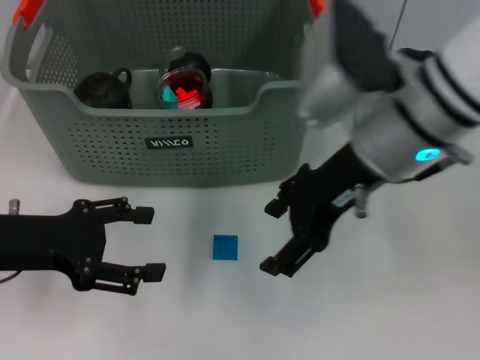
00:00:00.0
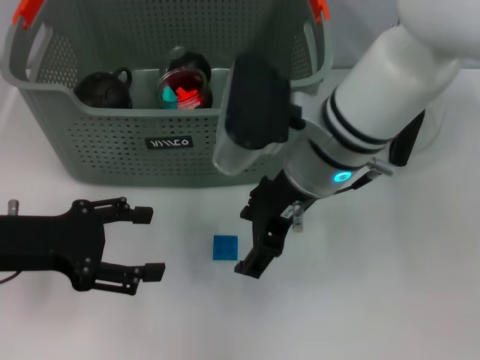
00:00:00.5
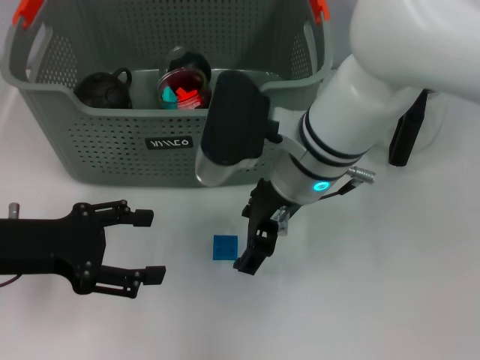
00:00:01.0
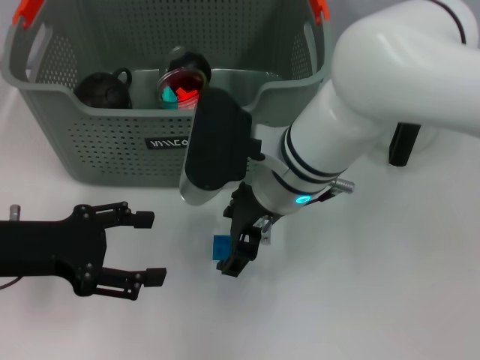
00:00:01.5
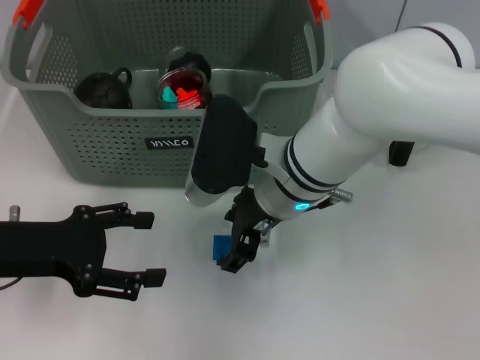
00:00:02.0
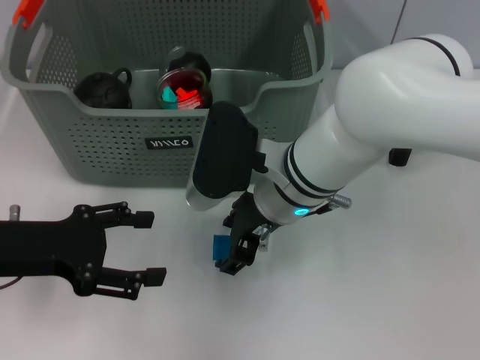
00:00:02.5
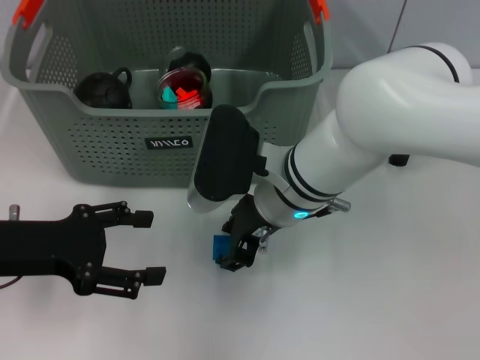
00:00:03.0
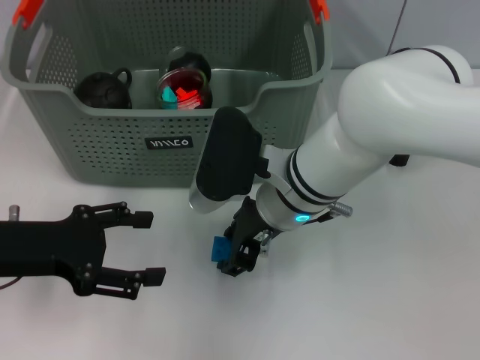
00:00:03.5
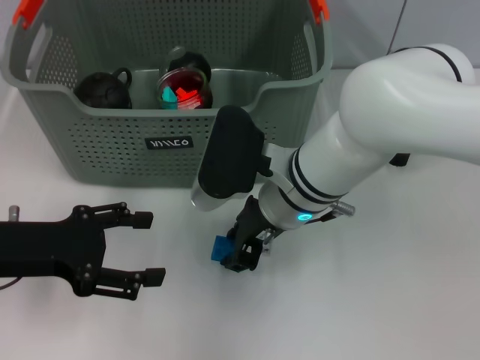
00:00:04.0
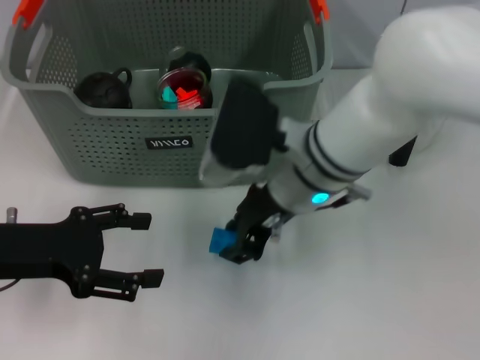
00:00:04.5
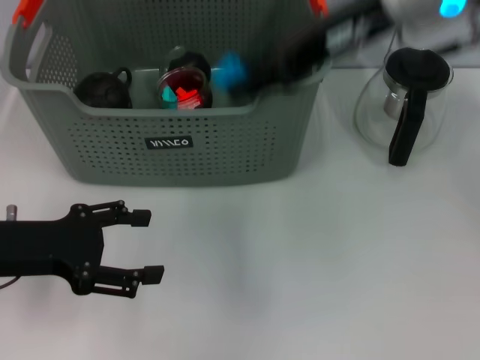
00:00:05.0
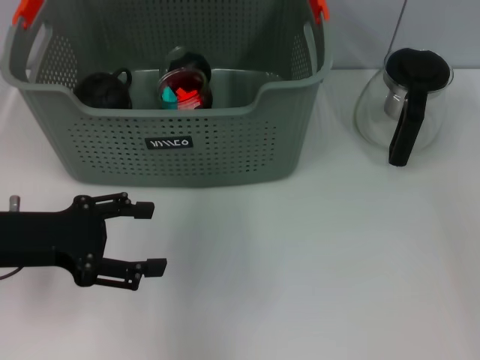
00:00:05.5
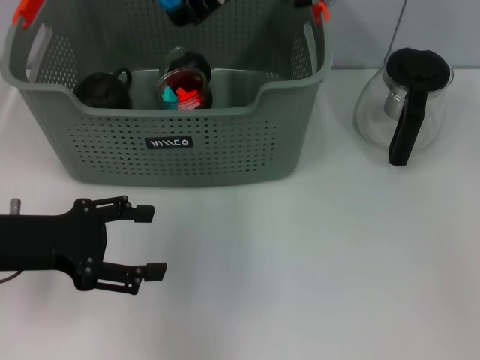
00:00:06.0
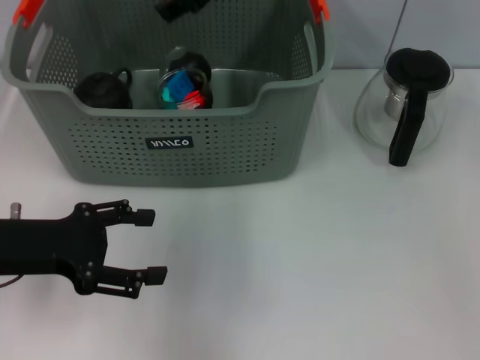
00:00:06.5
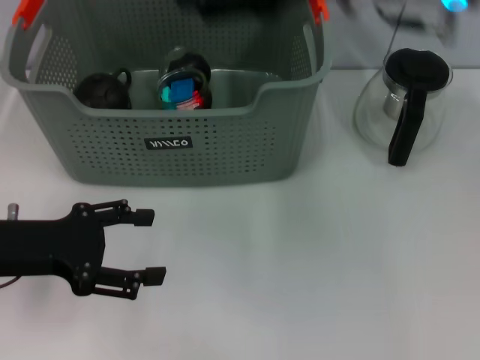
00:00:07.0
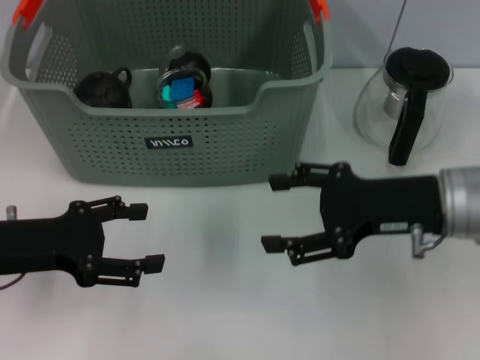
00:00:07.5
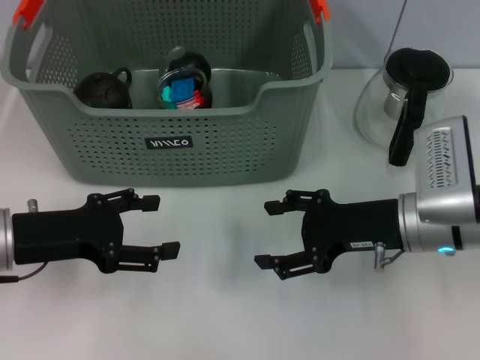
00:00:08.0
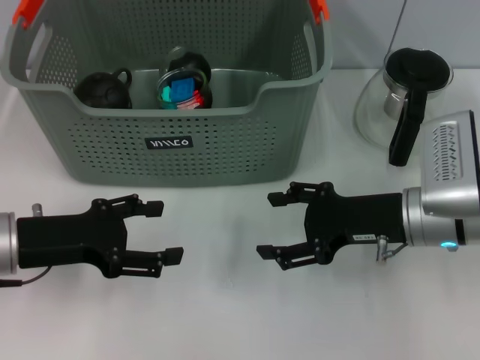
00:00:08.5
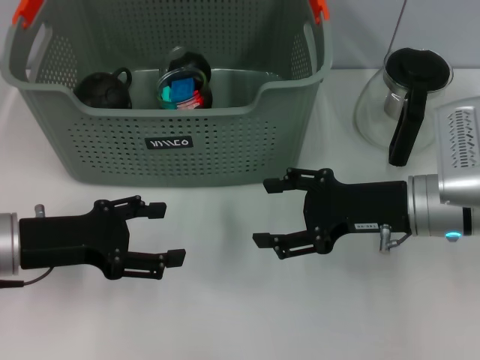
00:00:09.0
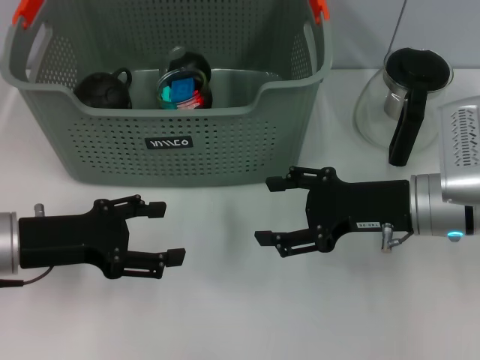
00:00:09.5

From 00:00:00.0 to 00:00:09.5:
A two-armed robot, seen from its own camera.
Task of the whole recording: pick up the teacup on the table and place it into the storage bin, pick up the block on the table and place it into the storage bin.
Step, from 00:00:00.0 to 00:00:03.5: Grasp the dark blue block with right gripper.
Step, from 00:00:04.0 to 00:00:06.5: Place the dark blue block in the storage box with right gripper.
From 00:00:00.0 to 00:00:02.0: The right gripper travels downward and to the left by approximately 10 cm.
From 00:00:02.0 to 00:00:04.0: The right gripper closes its fingers.
From 00:00:04.0 to 00:00:05.5: The right gripper travels upward and forward by approximately 25 cm.
From 00:00:05.5 to 00:00:07.5: The right gripper shifts roughly 25 cm downward, to the right and backward, and opens up.
From 00:00:07.5 to 00:00:09.5: The grippers make only small movements.
